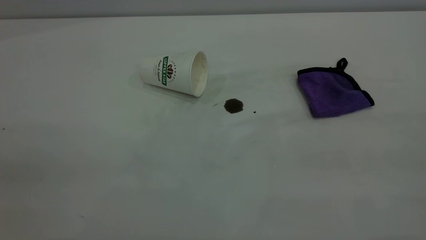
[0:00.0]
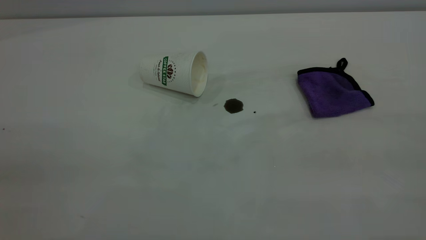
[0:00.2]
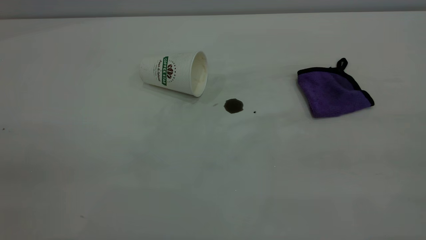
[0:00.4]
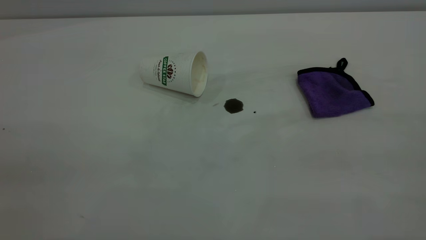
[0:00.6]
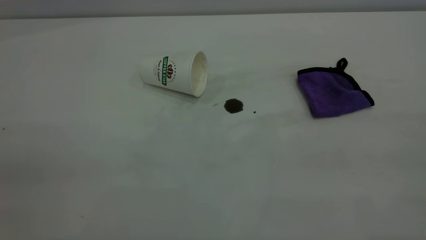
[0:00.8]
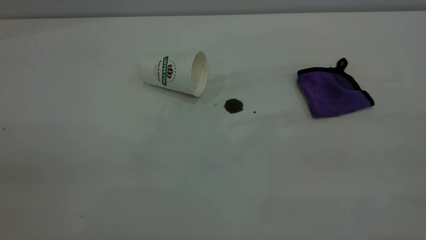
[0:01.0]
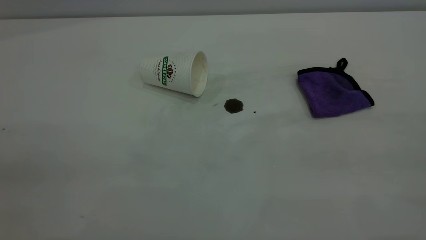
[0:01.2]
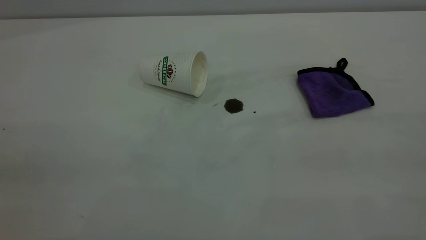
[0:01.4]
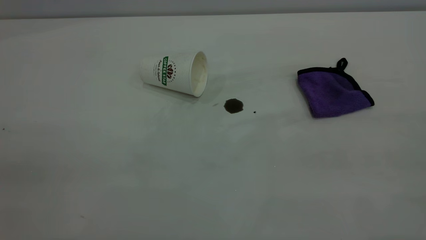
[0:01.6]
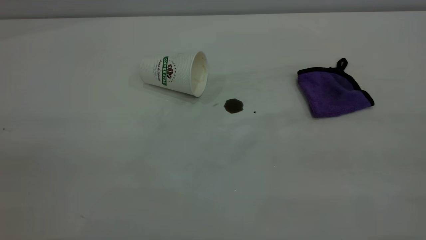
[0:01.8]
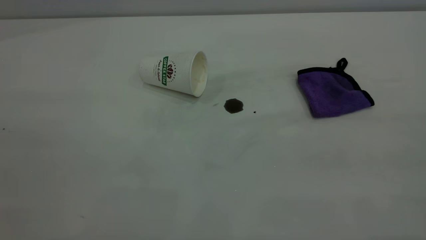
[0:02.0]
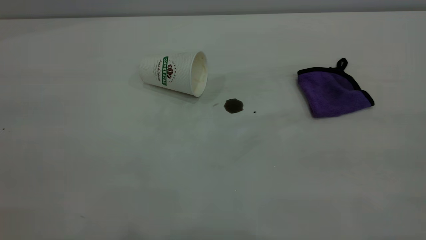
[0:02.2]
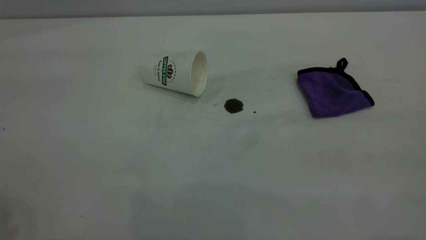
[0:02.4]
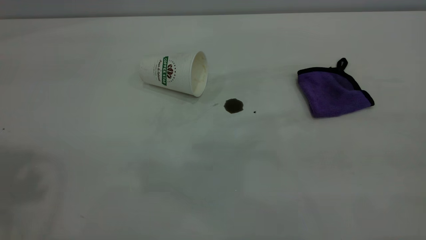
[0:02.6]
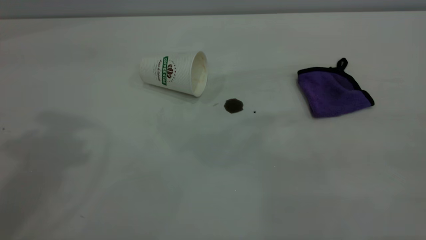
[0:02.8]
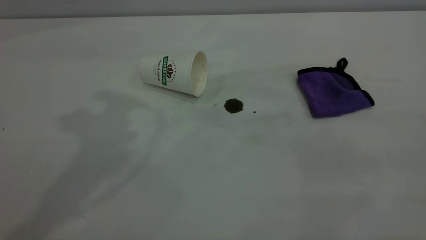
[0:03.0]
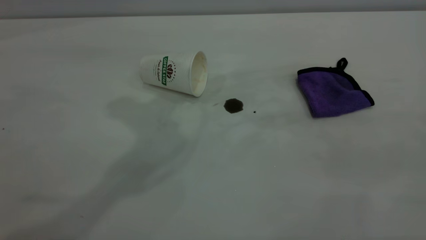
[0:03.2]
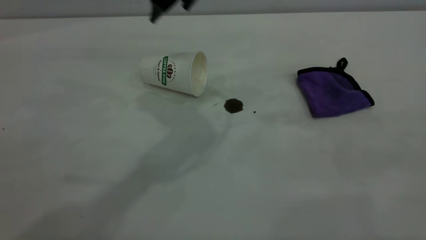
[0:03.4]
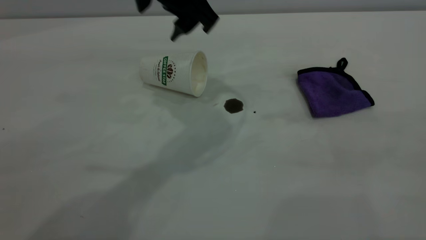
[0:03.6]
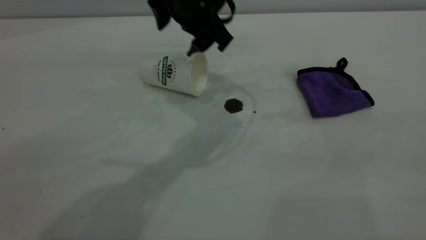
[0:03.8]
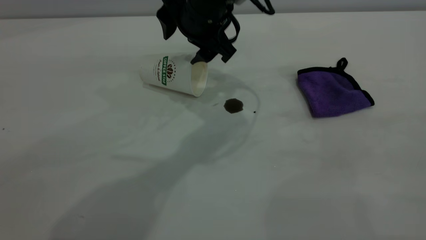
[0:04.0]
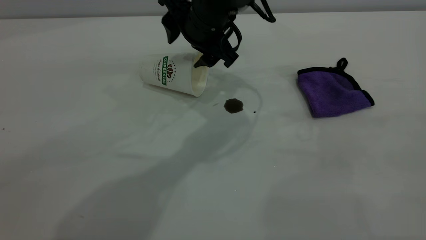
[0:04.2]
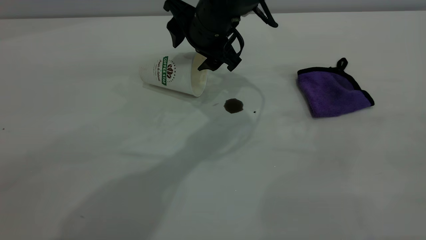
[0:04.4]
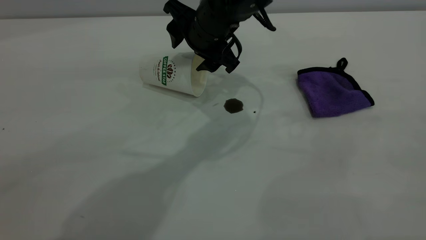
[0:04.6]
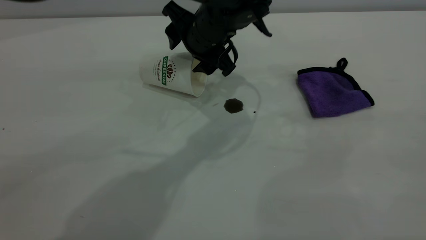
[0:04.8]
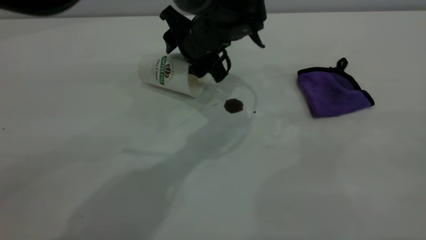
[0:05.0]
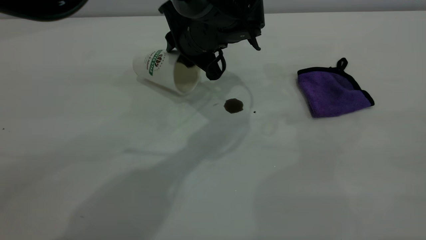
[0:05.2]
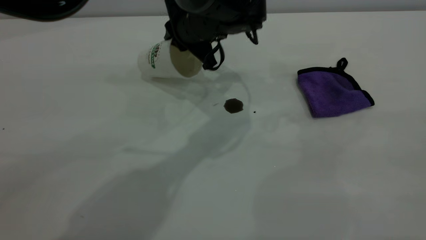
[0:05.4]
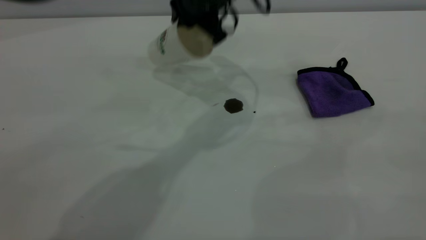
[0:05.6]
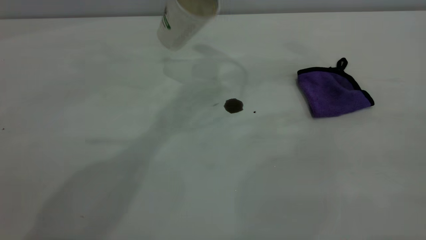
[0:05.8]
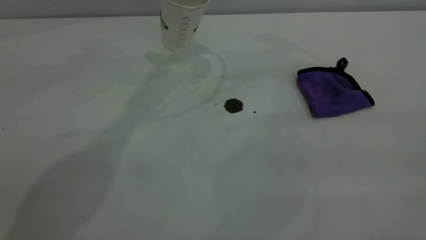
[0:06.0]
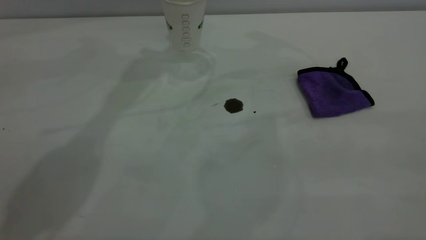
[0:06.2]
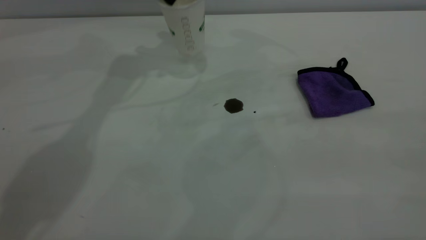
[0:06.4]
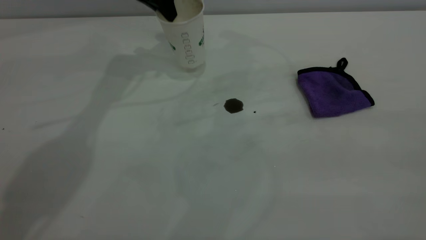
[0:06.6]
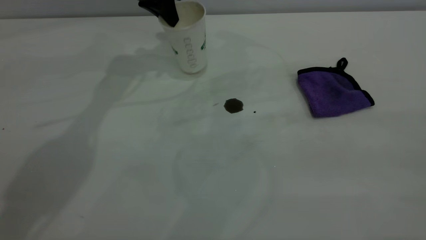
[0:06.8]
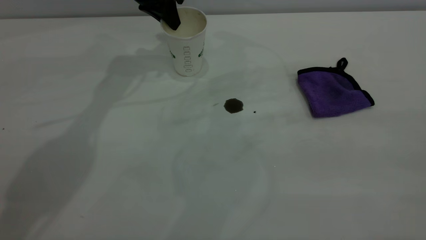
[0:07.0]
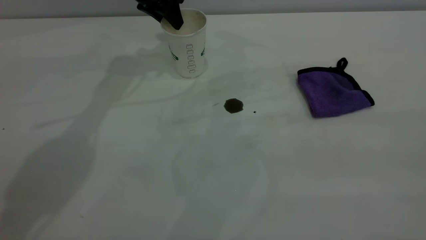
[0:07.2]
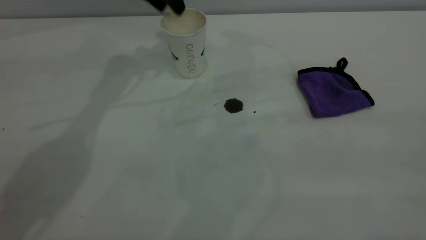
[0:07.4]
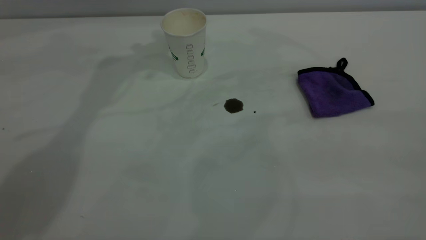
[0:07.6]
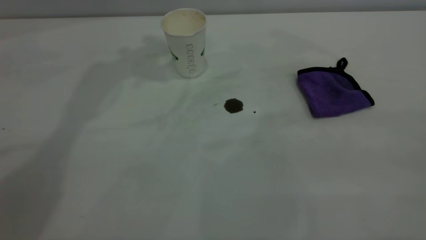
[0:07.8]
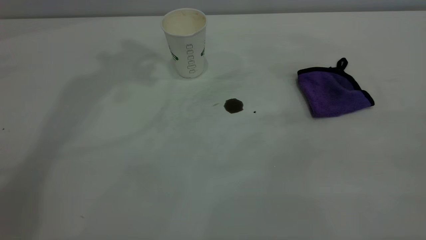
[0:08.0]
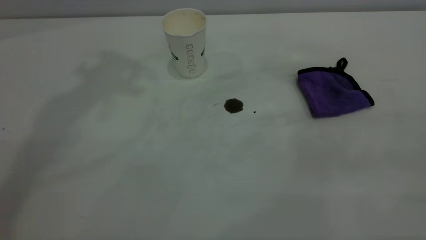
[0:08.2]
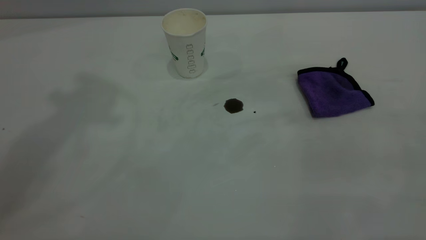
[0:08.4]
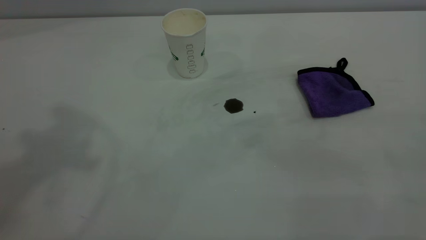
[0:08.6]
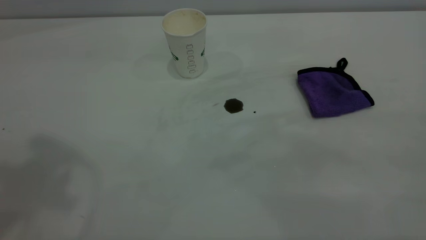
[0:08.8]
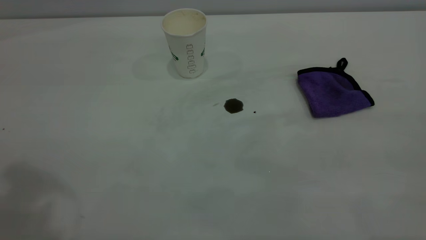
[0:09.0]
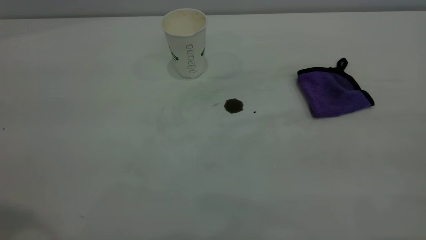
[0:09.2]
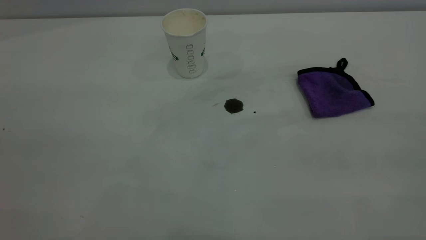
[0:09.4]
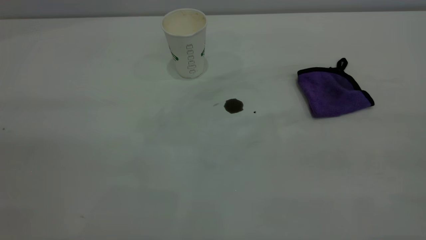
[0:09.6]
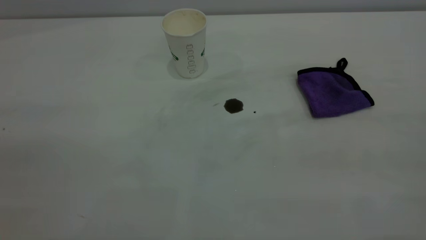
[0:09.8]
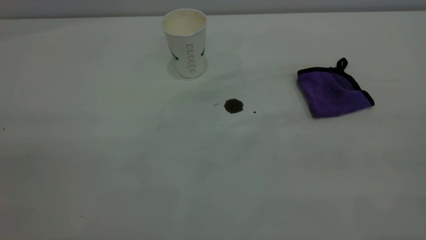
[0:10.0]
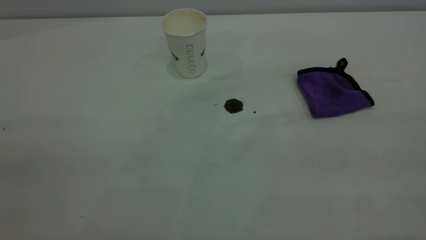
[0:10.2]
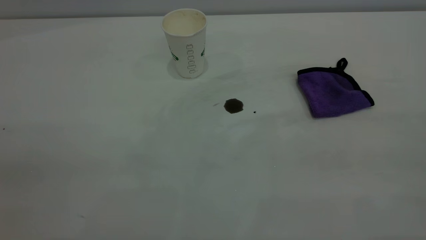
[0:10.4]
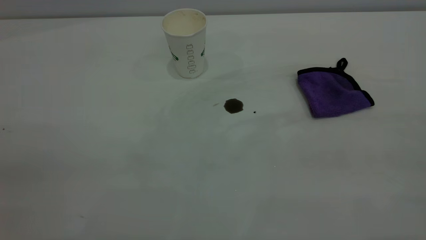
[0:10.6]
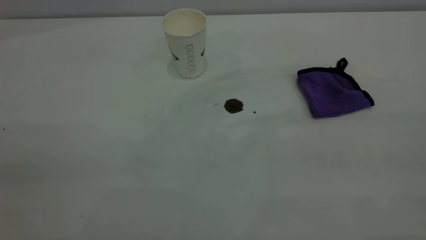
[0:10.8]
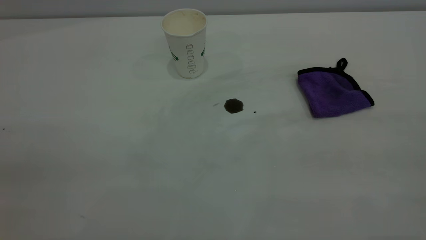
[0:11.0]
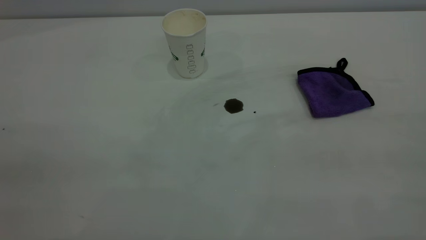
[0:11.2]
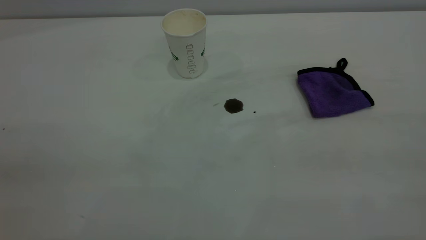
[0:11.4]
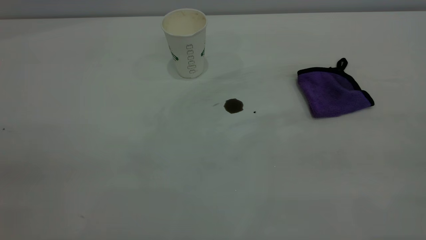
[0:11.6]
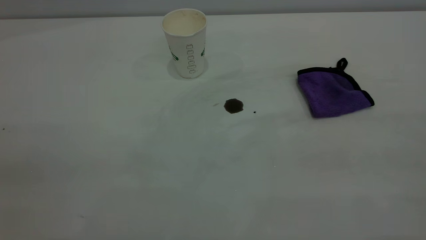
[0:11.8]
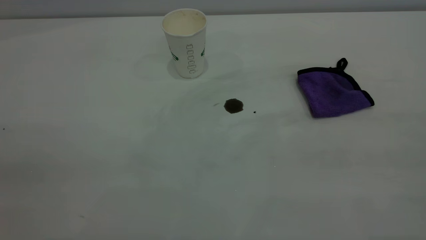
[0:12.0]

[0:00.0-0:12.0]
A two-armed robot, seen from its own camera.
Task of the whole recording: the left gripper pick up the fallen cup and place it upright, the right gripper grasp the purple rag and wipe the coffee stain on the table, the right gripper put the purple rag back in its original position.
Step, 0:00.0 to 0:07.2: Stand the paper cup upright.
0:00.0 to 0:01.6: Neither gripper changes place.
0:03.0 to 0:04.4: The left gripper shifts some 25 cm downward and to the right.
0:04.4 to 0:06.0: The left gripper goes some 15 cm upward, to the left and forward, and closes.
0:10.4 to 0:12.0: Both grippers stay put.

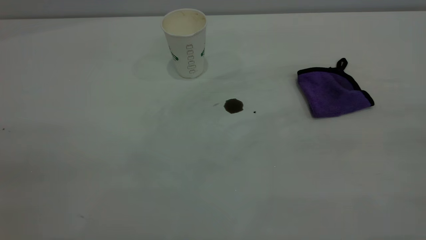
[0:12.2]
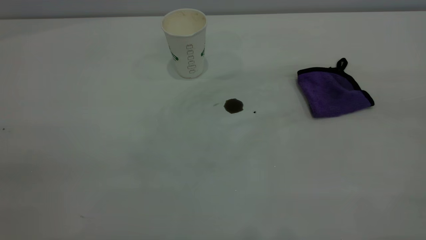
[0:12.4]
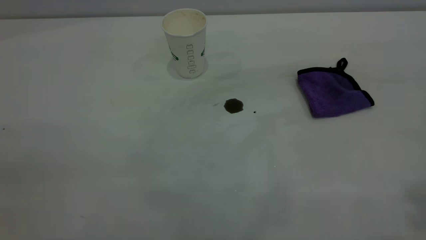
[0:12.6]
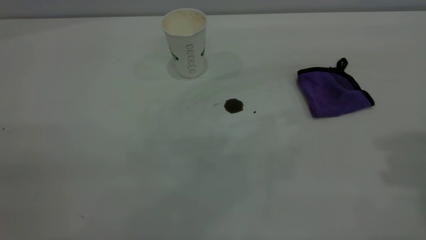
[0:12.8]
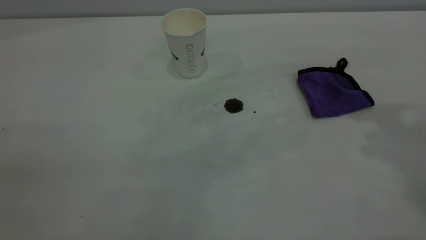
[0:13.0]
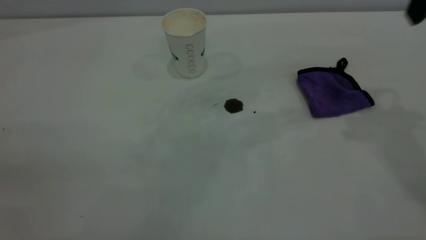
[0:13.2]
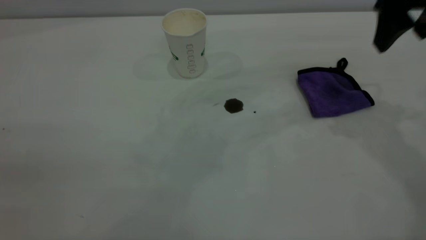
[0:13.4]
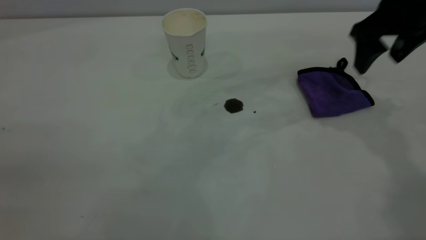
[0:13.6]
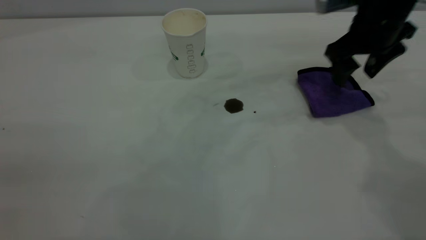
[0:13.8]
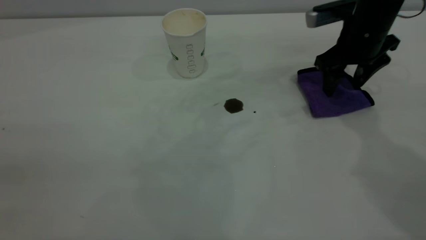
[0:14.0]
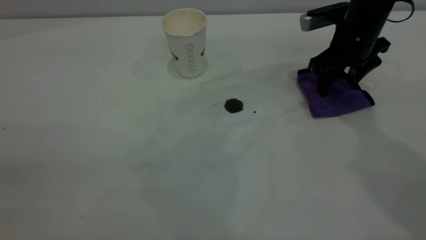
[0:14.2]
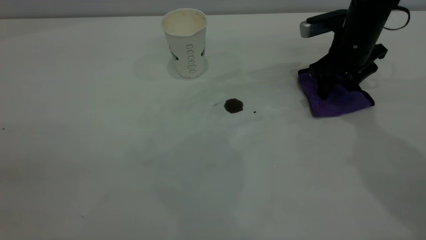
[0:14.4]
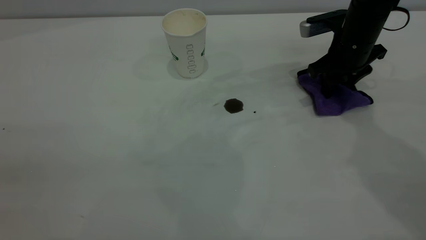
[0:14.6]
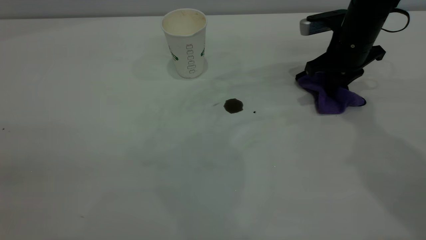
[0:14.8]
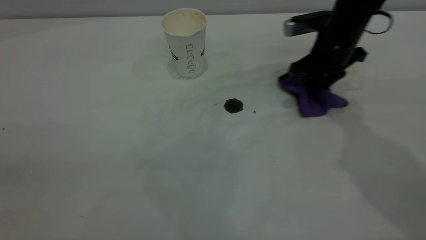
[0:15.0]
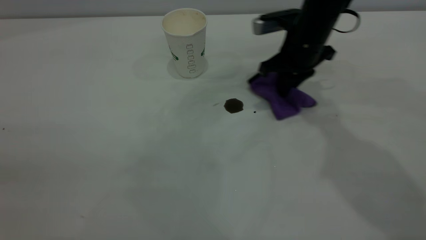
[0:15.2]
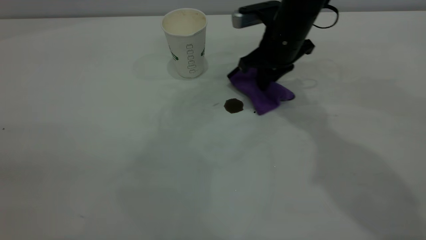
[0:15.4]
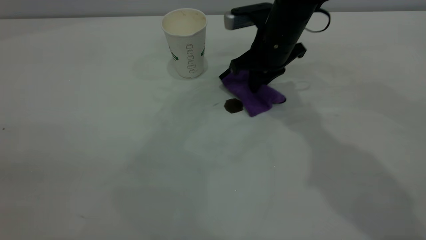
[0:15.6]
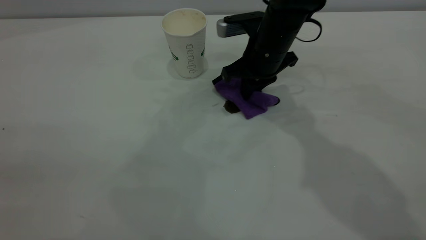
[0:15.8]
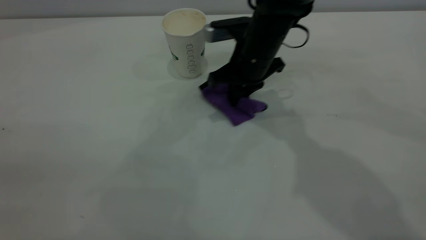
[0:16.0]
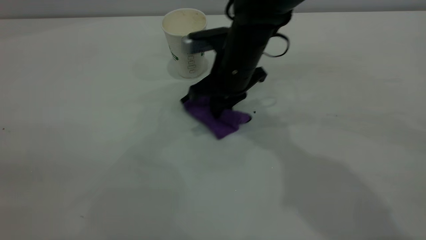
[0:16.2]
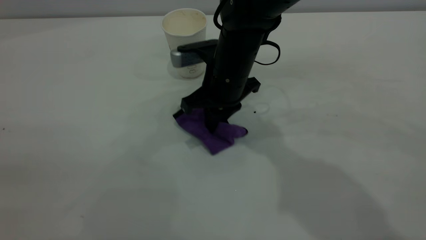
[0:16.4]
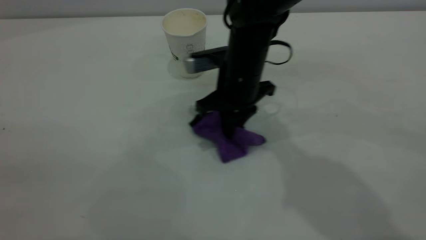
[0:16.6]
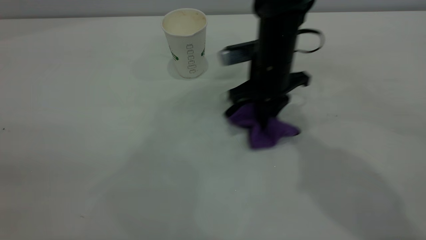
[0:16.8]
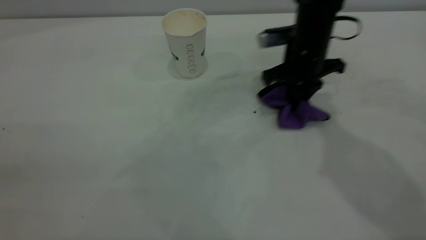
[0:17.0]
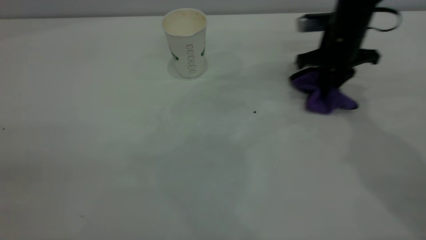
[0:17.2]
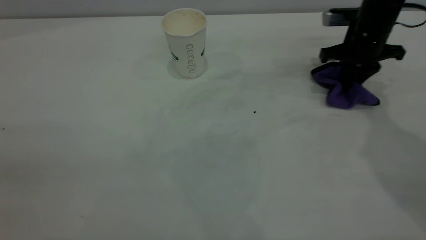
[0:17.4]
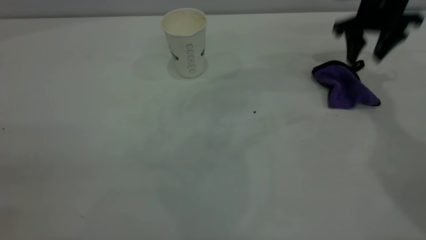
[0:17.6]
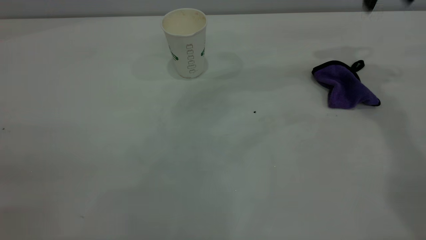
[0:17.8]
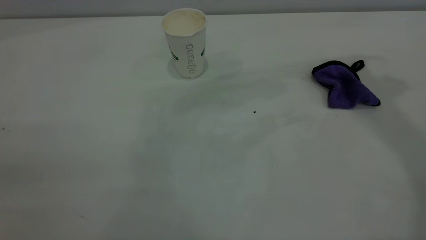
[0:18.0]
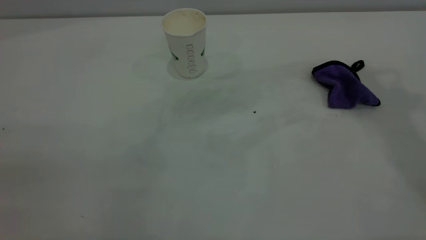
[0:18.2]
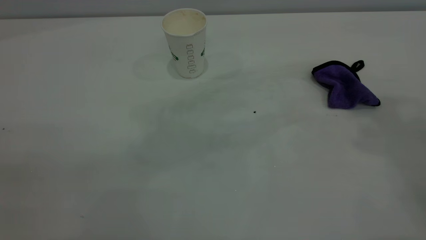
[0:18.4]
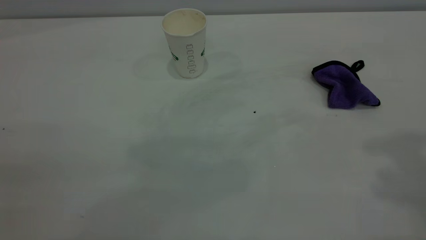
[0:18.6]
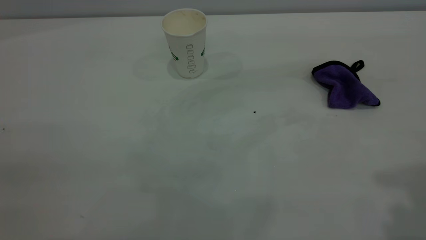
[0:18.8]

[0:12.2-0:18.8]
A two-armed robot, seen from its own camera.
Task of the whole recording: the left gripper pick up the fallen cup and place it upright, the right gripper grasp the purple rag and wipe the coffee stain on the table, the right gripper put the purple rag back in its original position.
Step, 0:12.2 to 0:17.6: Wipe the stains off the table with a rag.
0:12.2 to 0:13.8: The right gripper goes roughly 50 cm forward and downward, and opens up.
0:13.8 to 0:15.4: The right gripper is displaced to the left by roughly 10 cm, and closes up.
0:15.4 to 0:17.2: The right gripper heads to the right, covering some 10 cm.
0:17.2 to 0:18.8: The right gripper moves upward and backward, some 40 cm, and opens.
